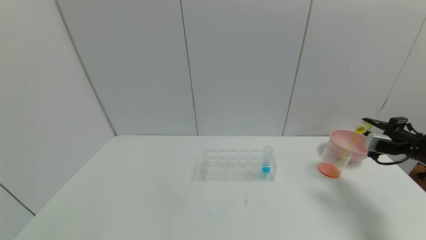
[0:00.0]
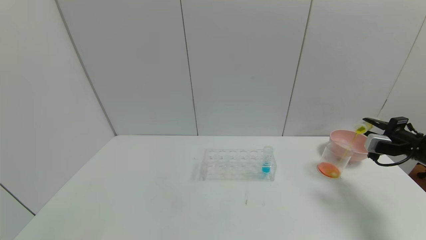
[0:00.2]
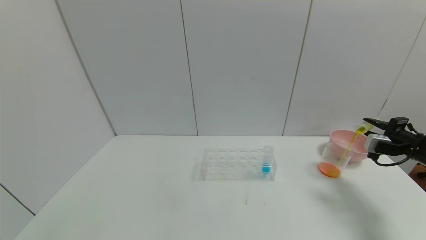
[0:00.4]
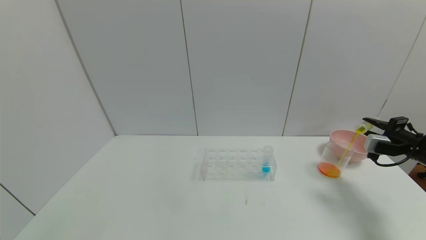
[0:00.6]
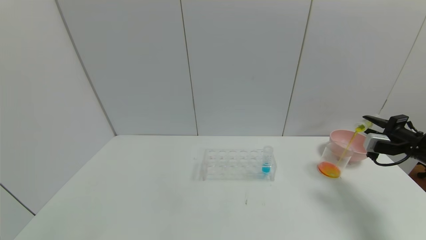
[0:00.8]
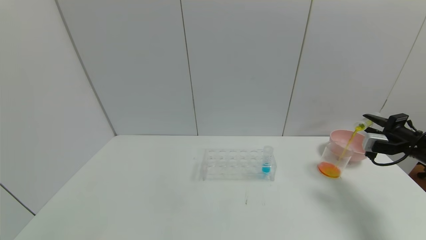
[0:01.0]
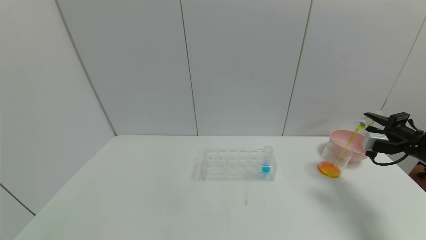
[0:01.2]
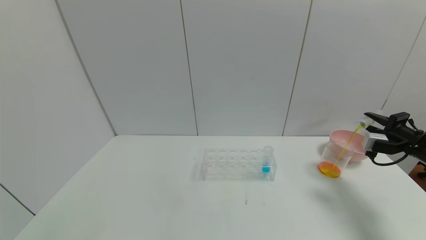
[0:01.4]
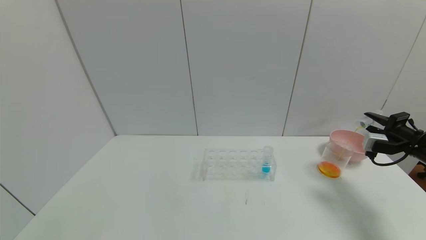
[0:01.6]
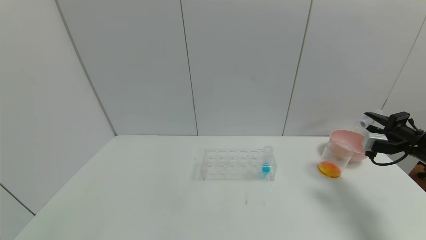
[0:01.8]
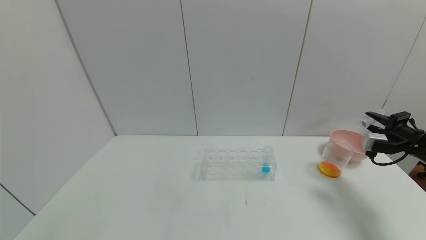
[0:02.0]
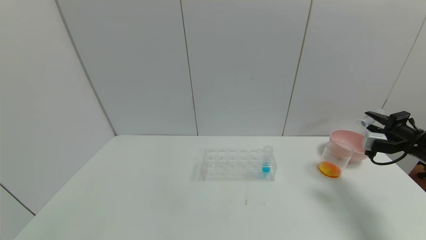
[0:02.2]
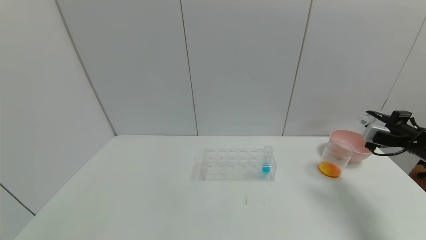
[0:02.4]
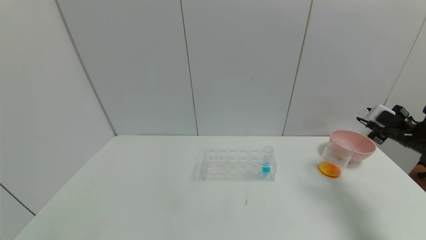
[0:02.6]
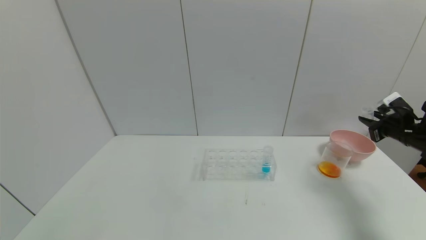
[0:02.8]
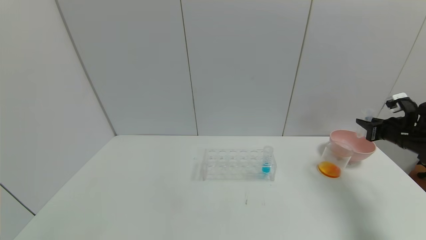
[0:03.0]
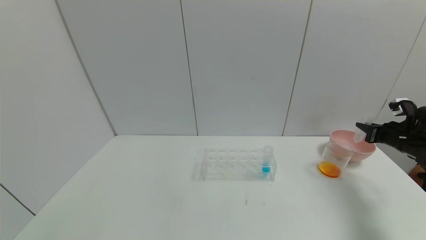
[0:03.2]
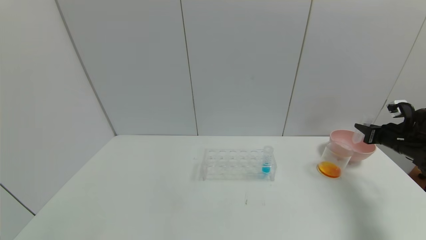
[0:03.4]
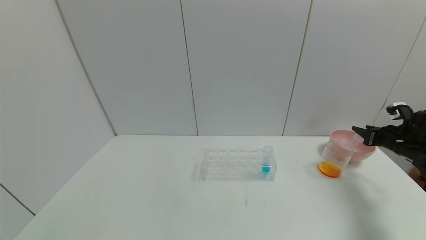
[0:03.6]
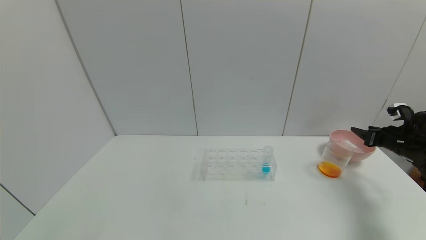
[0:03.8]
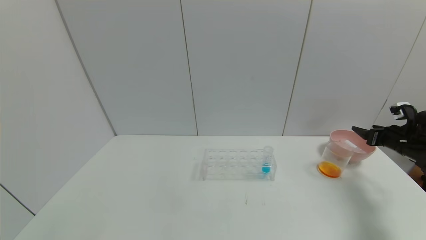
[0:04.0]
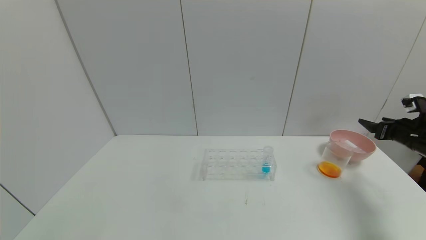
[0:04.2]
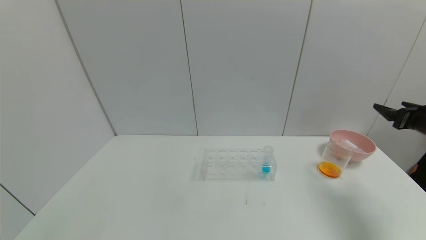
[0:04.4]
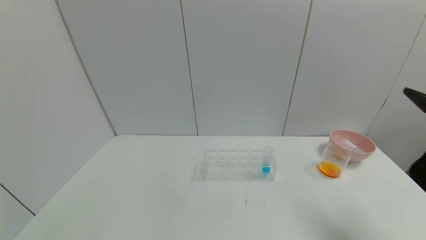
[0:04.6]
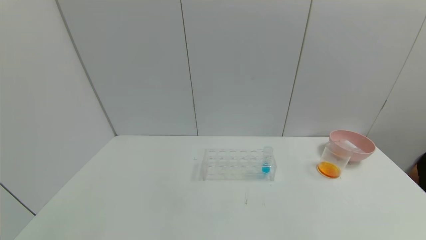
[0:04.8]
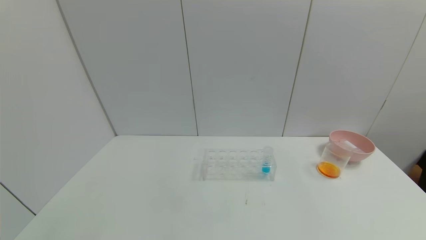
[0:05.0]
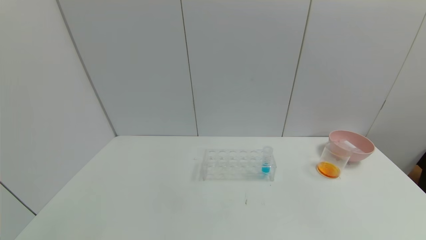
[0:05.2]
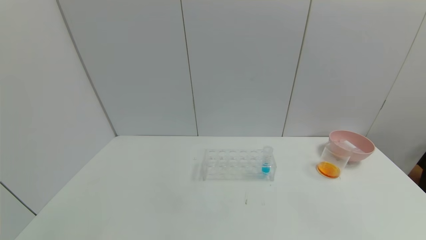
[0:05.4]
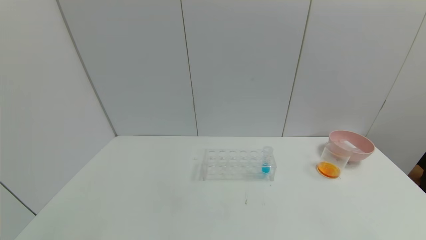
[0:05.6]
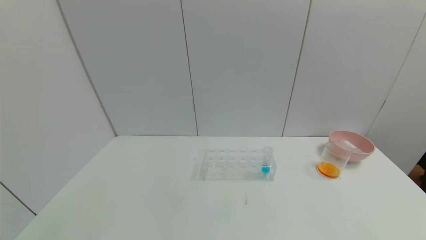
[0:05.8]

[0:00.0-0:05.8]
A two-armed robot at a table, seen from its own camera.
Task of the whole recording: pick up the test tube with yellow pigment and the test tube with red pigment by grippers and pour them into the beaker.
Step, 0:02.0 to 0:04.0: Place the test tube into the bowl with the right gripper.
0:00.0 to 0:01.4: The grippers move only a little.
0:02.8 to 0:04.4: The right gripper goes about 10 cm backward and upward, and opens up.
0:04.4 to 0:05.8: The right gripper is displaced backward and downward by roughly 35 cm.
